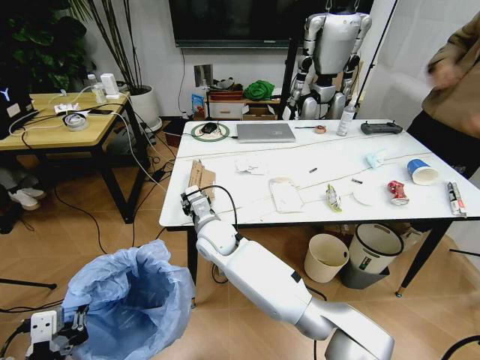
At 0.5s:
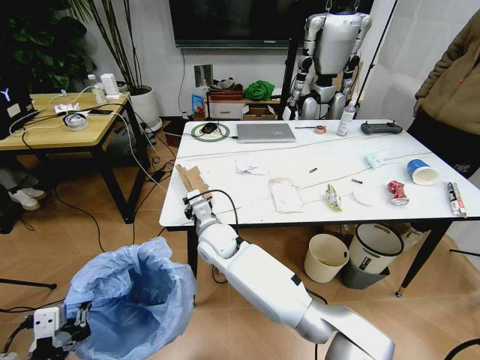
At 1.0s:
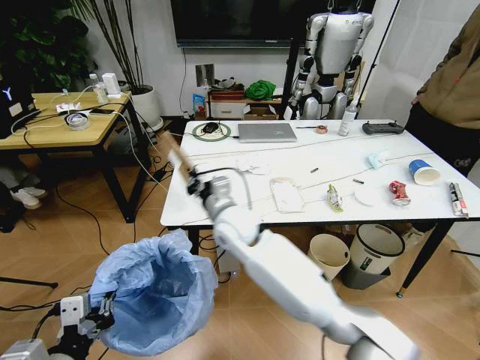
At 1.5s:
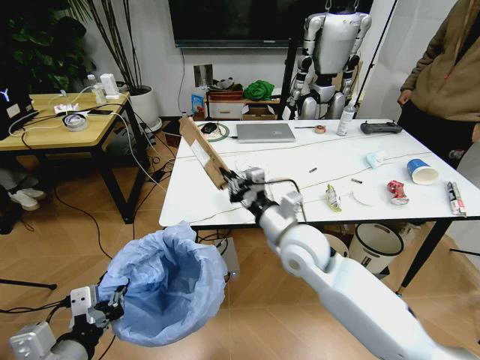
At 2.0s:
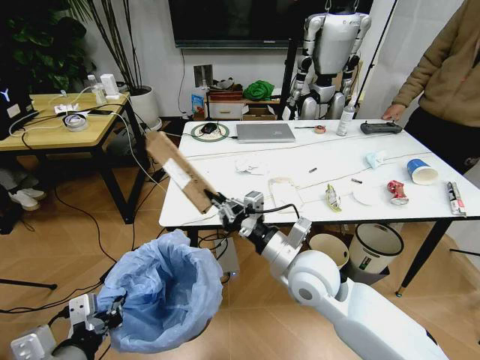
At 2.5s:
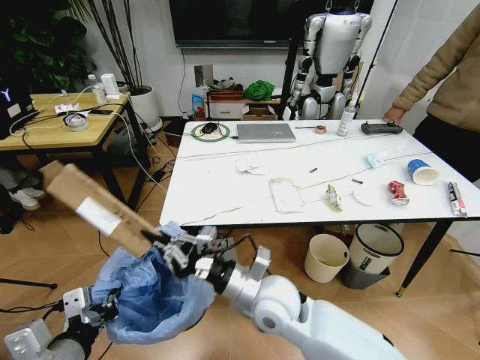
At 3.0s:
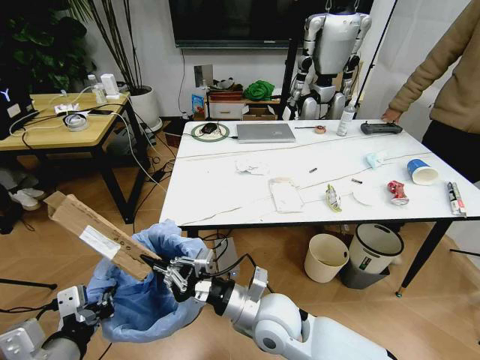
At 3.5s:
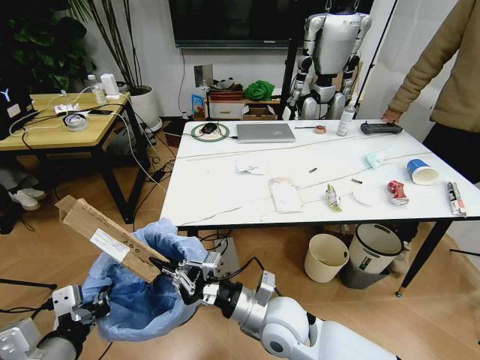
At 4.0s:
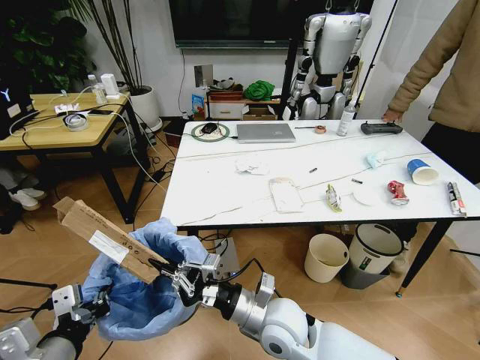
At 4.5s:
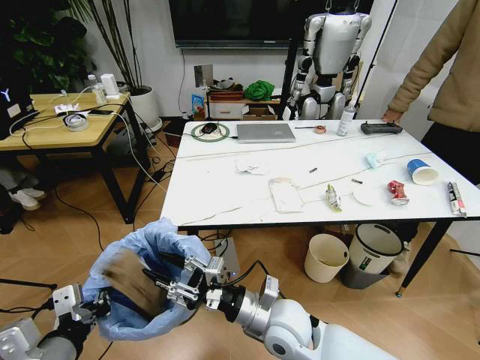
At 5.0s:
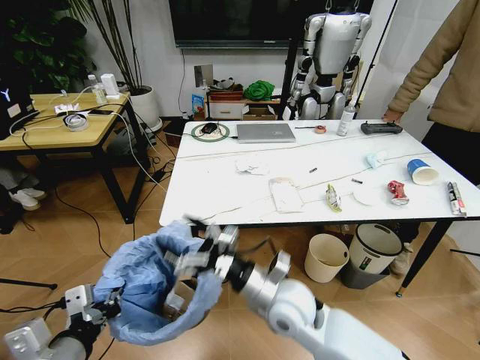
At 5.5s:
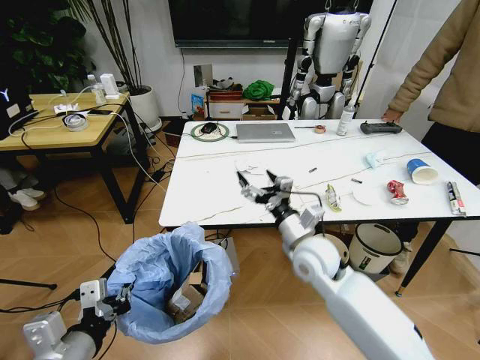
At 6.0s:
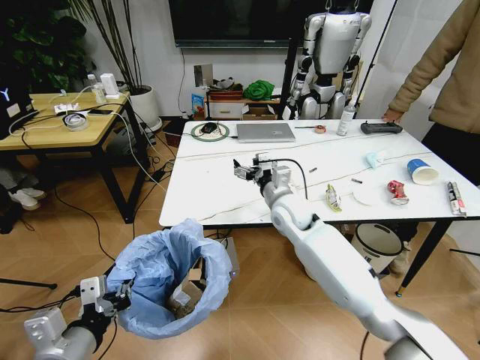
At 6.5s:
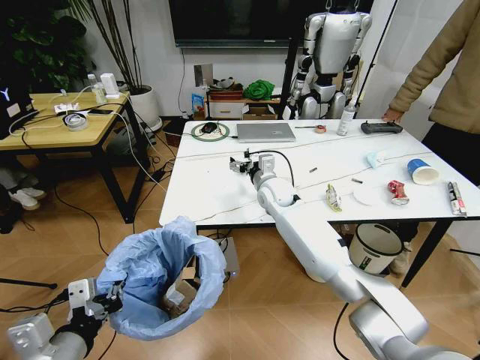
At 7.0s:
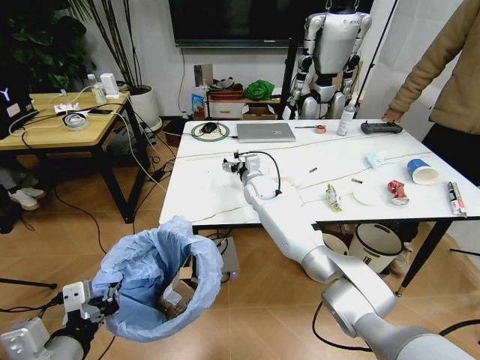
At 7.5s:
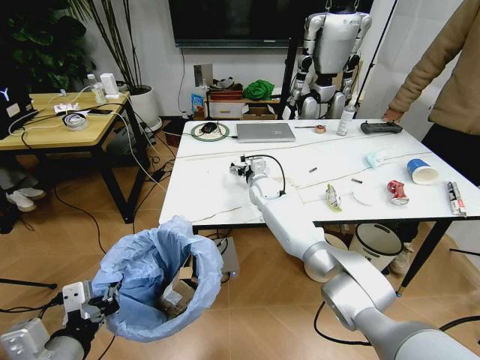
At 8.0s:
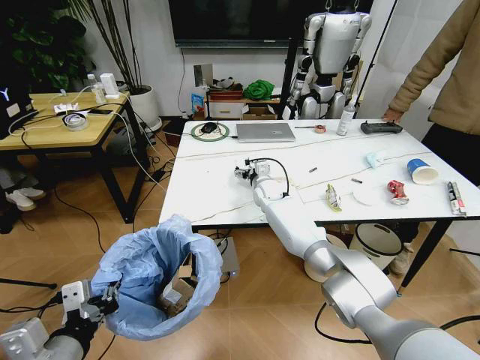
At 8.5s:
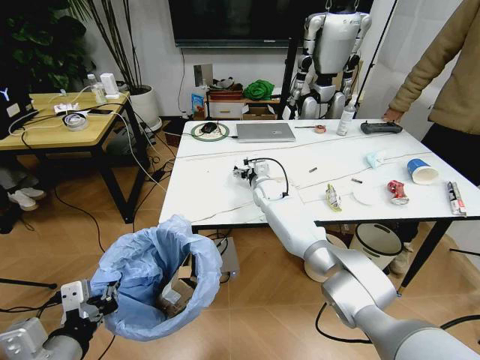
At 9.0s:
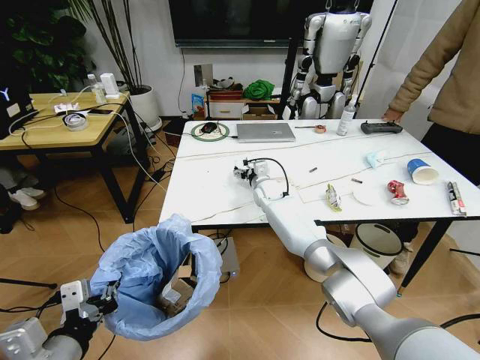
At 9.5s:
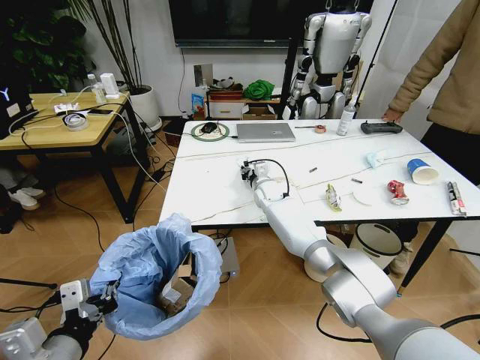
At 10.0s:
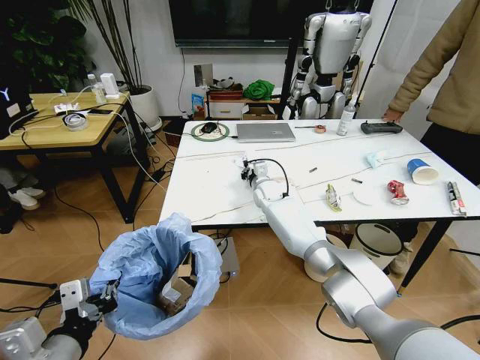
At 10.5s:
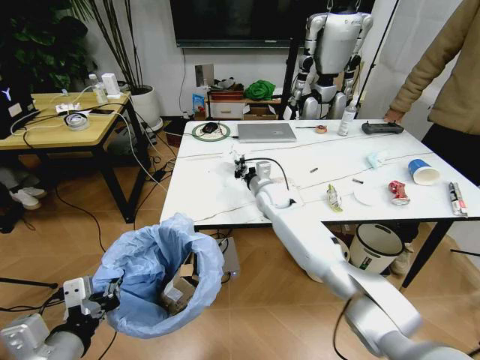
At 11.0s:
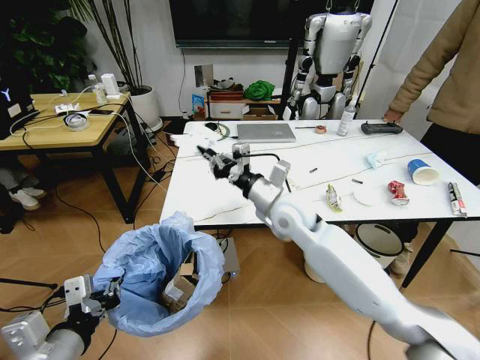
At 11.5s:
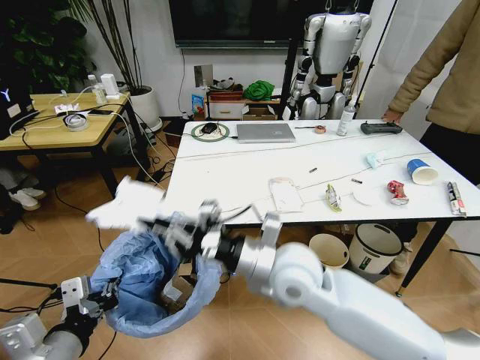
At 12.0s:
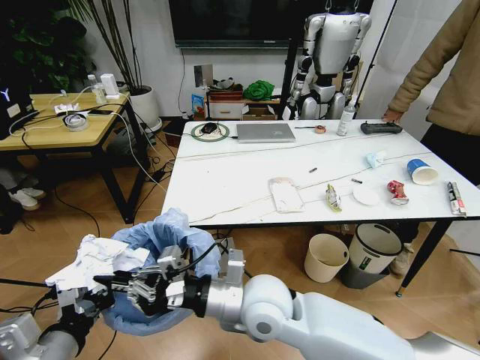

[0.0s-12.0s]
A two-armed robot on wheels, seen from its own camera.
Task of the whole recording: Pick up the trash bin and place the trash from the table into it.
0.0s to 2.0s: The right gripper moves to the right and backward, roughly 25 cm, and closes, while the left gripper ends up some 5 cm from where it was.
2.0s to 4.0s: The right gripper travels downward, backward and to the left by approximately 10 cm.
4.0s to 6.0s: The right gripper heads forward, covering about 25 cm, and opens its fingers.
6.0s to 8.0s: The right gripper goes about 15 cm forward and downward.
8.0s to 10.0s: The right gripper closes its fingers.
10.0s to 12.0s: The right gripper travels backward by approximately 35 cm.

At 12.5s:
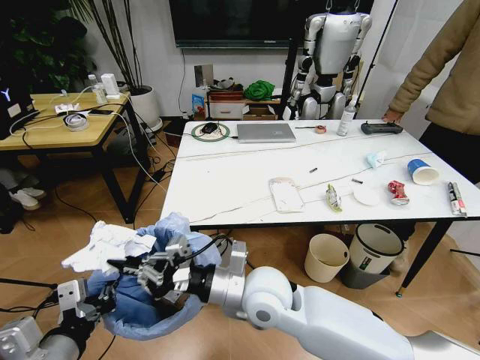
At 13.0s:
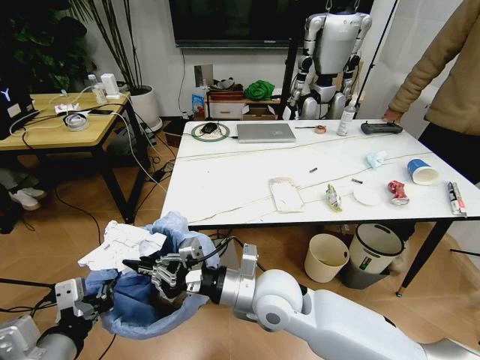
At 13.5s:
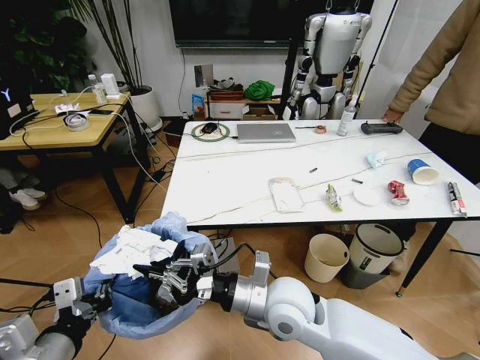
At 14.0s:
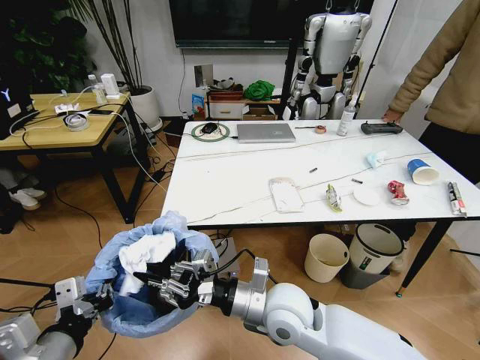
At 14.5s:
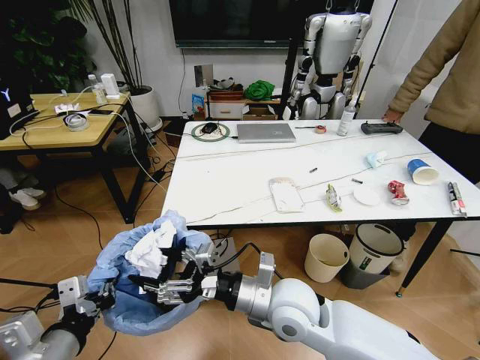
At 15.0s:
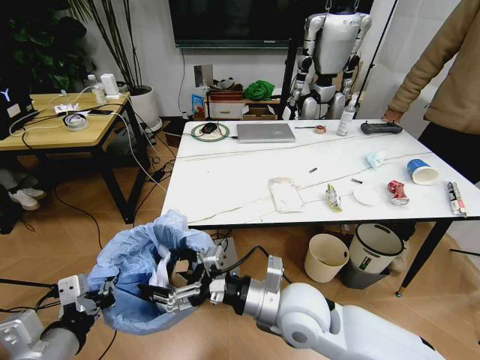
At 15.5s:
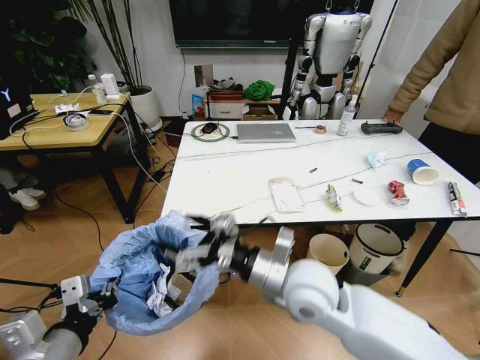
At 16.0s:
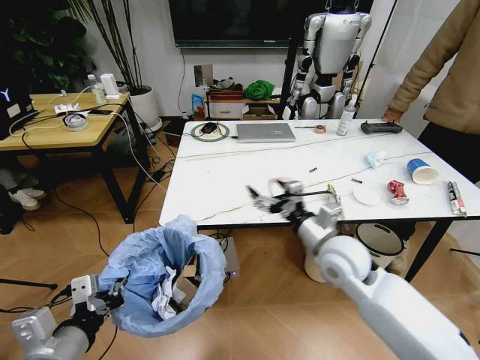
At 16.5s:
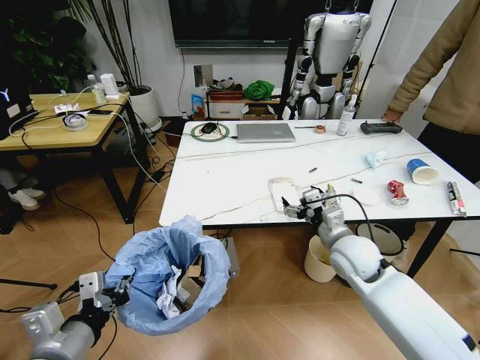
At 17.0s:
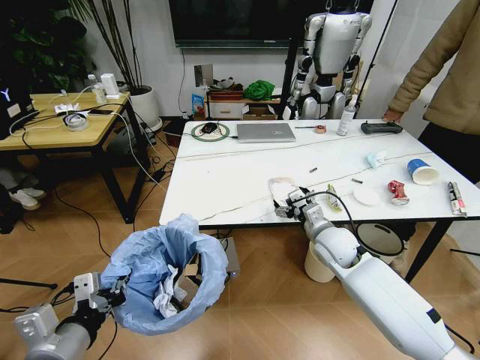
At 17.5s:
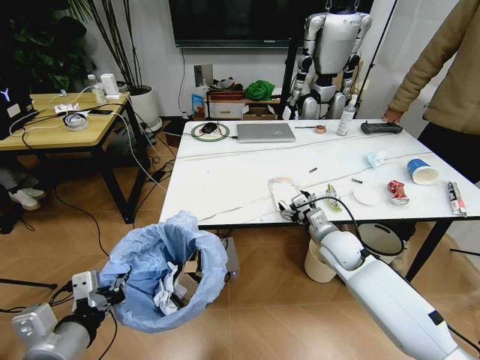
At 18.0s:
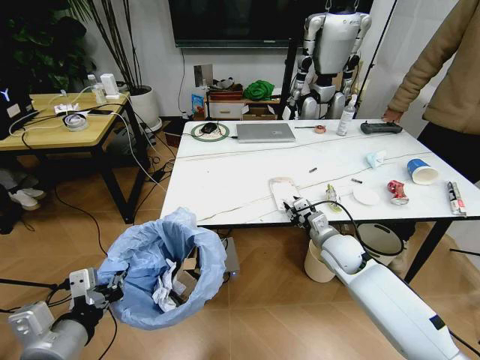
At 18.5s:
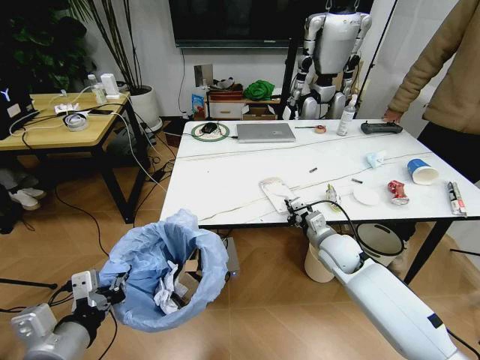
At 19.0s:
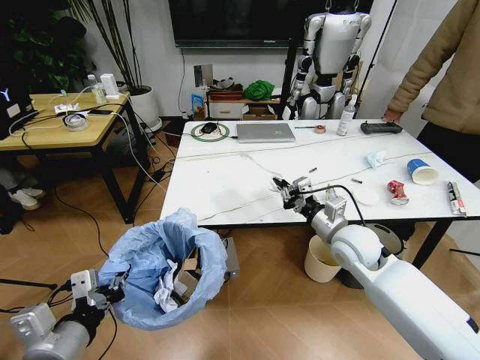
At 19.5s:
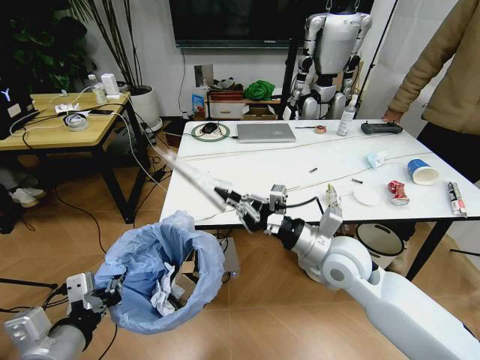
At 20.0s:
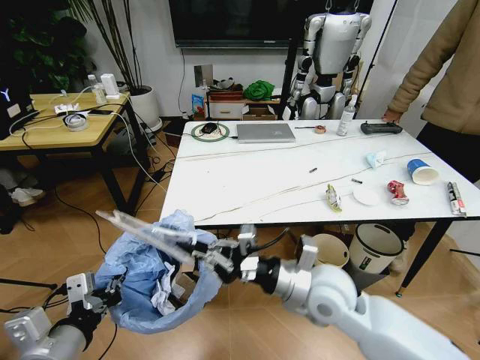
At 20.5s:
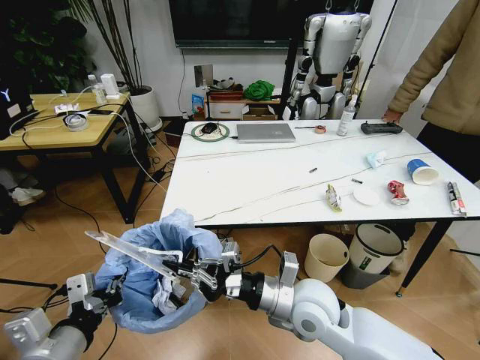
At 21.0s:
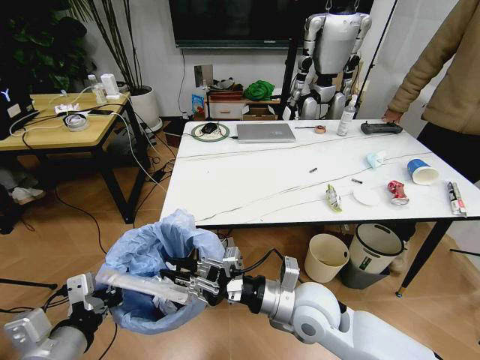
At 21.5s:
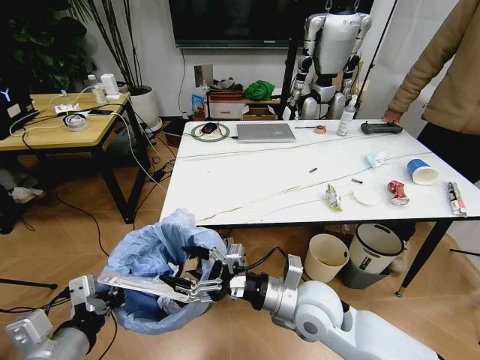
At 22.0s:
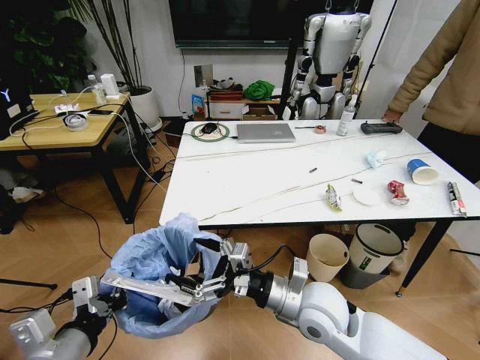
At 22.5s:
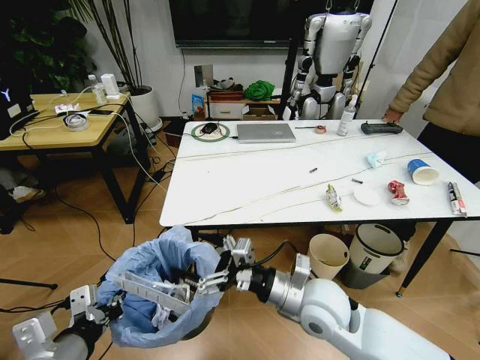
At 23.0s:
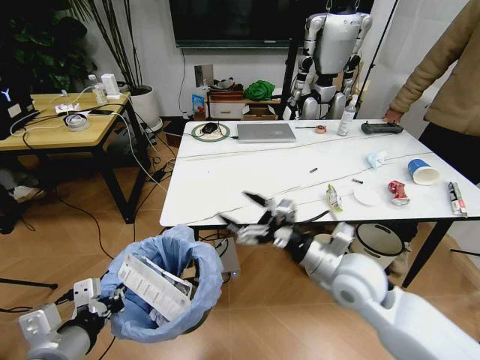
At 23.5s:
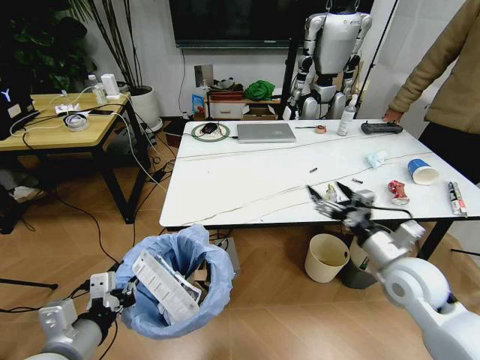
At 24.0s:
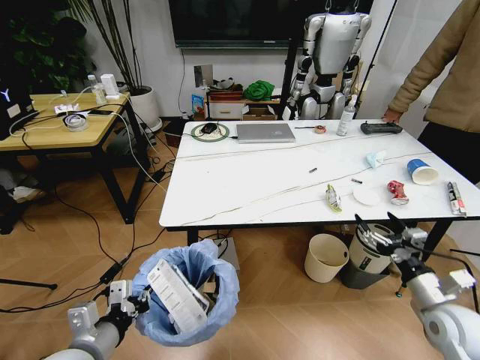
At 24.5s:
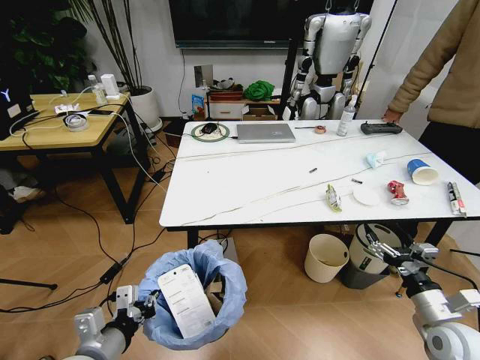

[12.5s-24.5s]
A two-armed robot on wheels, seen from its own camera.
Task of the whole recording: Pick up the trash bin and place the trash from the table into it.
12.5s to 14.5s: The right gripper moves approximately 5 cm, and opens.
14.5s to 16.5s: The right gripper moves to the right and forward, approximately 20 cm.
16.5s to 18.5s: The right gripper goes approximately 5 cm downward, and closes.
18.5s to 20.5s: The right gripper travels backward, to the left and upward by approximately 20 cm.
20.5s to 22.5s: The right gripper opens.
22.5s to 24.5s: The left gripper moves downward, roughly 10 cm, while the right gripper moves to the right, some 25 cm.

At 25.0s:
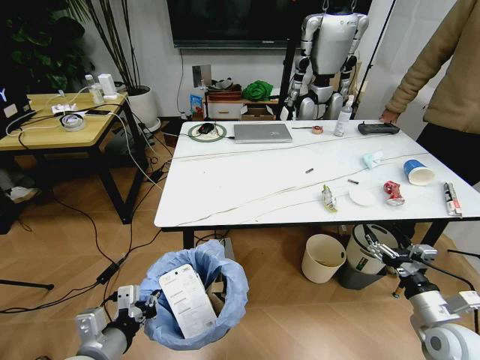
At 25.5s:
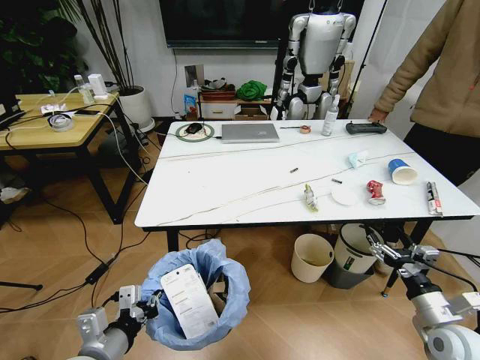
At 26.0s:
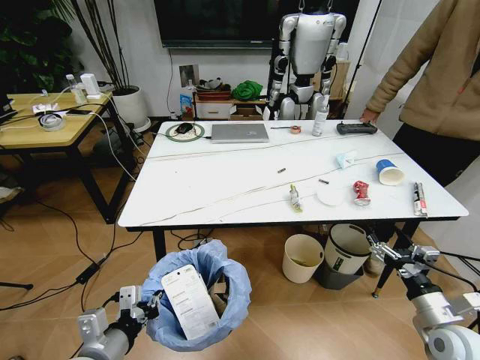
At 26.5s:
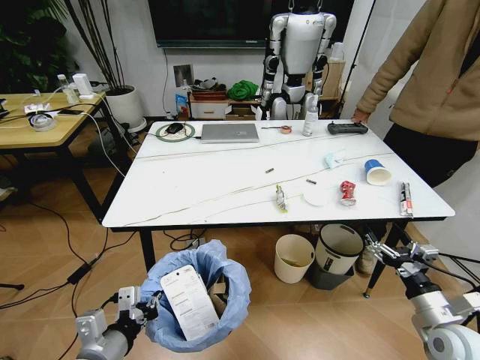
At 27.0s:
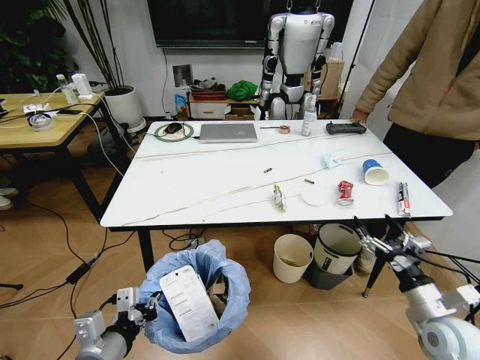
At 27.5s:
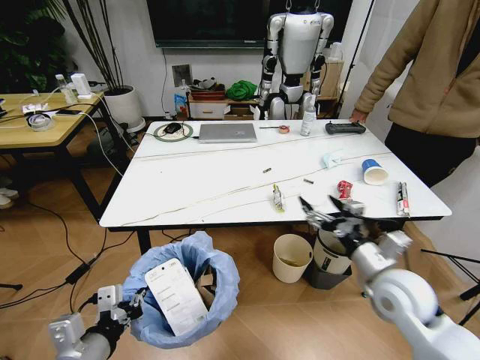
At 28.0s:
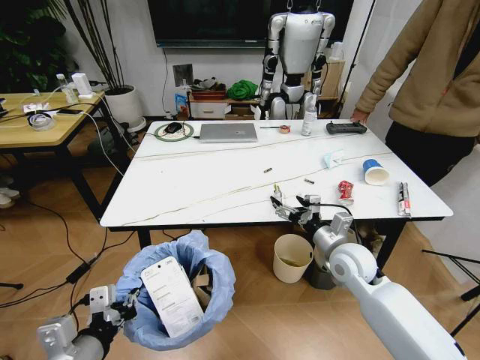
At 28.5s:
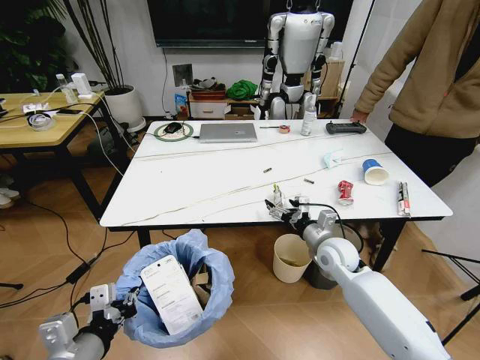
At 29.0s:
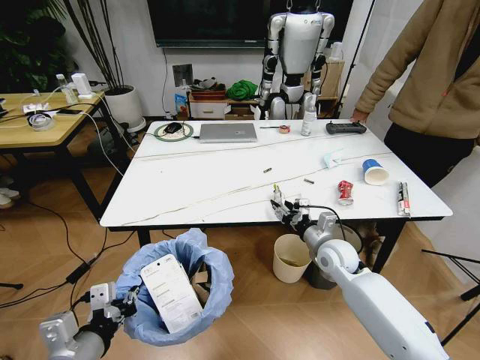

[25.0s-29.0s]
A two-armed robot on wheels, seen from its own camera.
Task of the whole recording: Pick up the trash bin and place the trash from the table into it.
27.0s to 29.0s: The right gripper is displaced forward and to the left by approximately 25 cm, and closes up.
